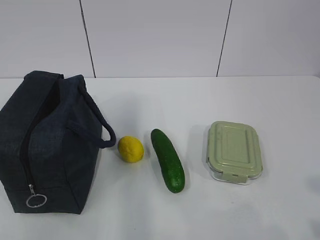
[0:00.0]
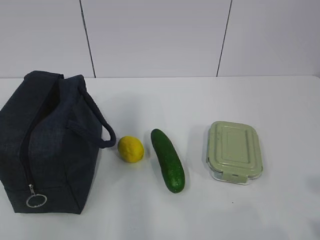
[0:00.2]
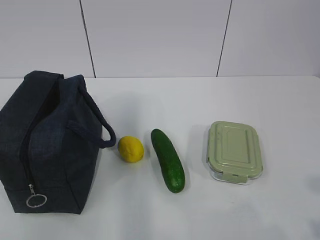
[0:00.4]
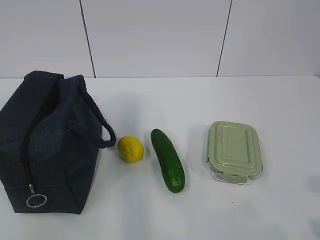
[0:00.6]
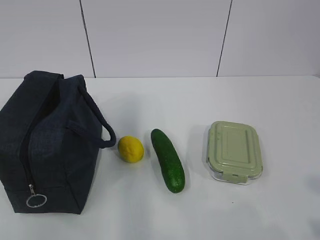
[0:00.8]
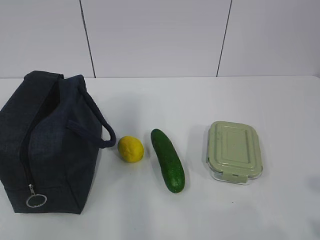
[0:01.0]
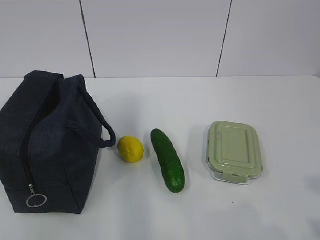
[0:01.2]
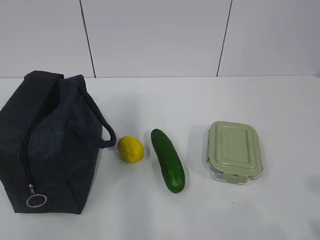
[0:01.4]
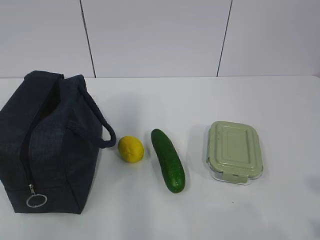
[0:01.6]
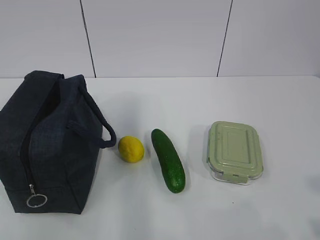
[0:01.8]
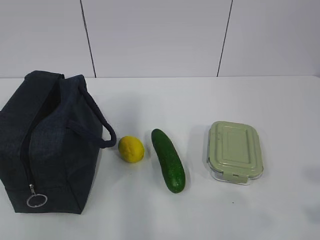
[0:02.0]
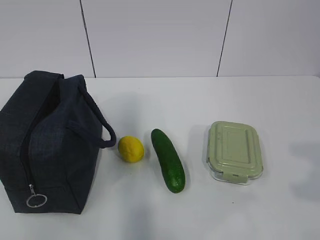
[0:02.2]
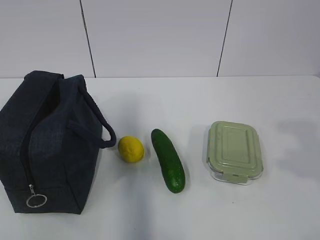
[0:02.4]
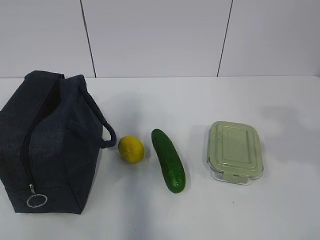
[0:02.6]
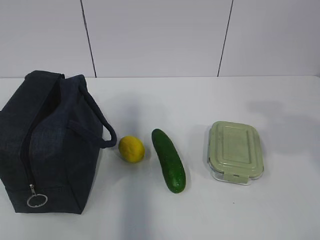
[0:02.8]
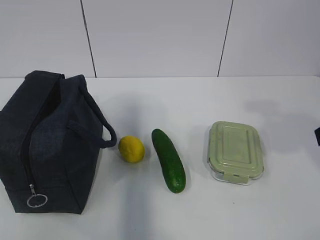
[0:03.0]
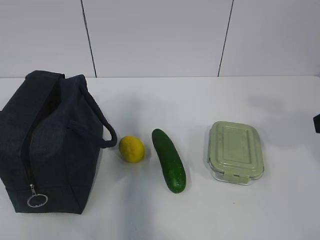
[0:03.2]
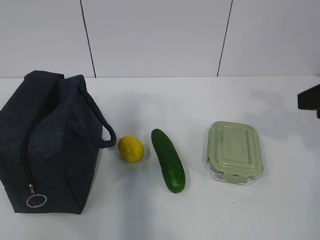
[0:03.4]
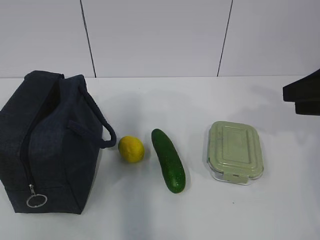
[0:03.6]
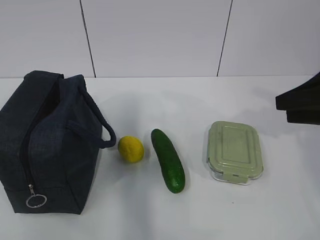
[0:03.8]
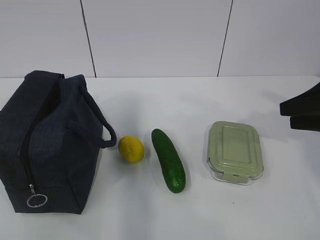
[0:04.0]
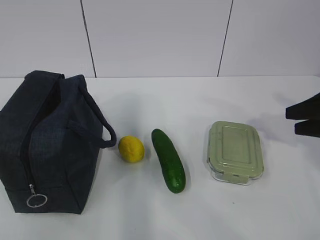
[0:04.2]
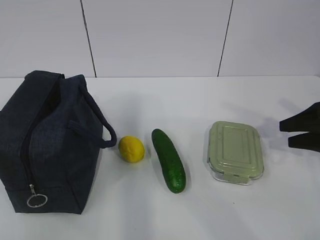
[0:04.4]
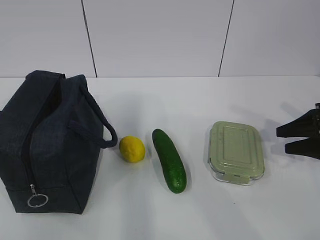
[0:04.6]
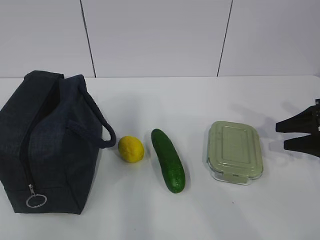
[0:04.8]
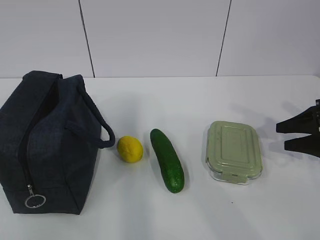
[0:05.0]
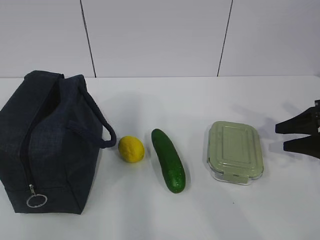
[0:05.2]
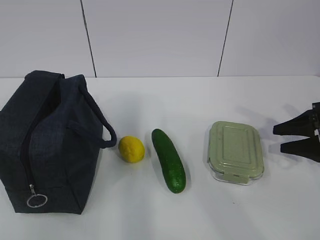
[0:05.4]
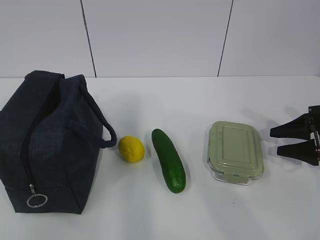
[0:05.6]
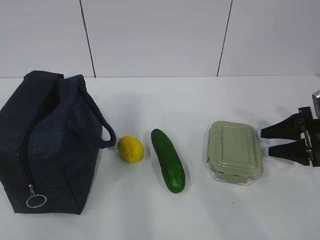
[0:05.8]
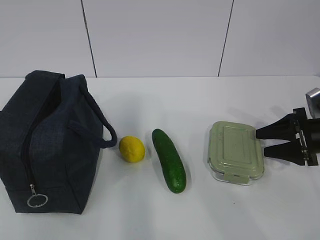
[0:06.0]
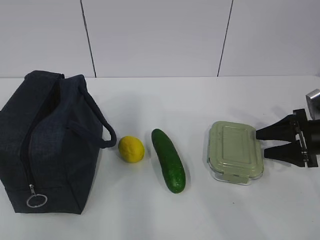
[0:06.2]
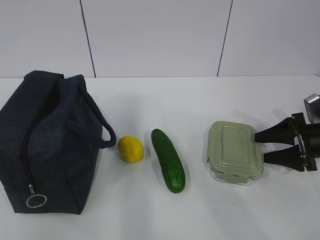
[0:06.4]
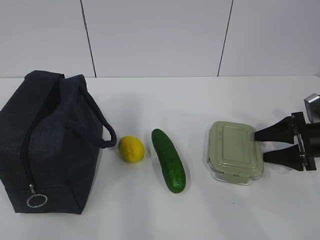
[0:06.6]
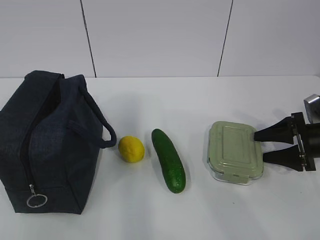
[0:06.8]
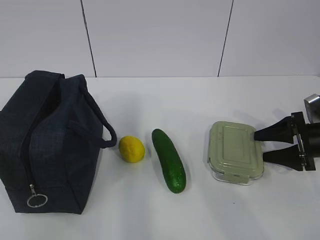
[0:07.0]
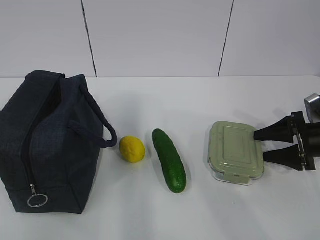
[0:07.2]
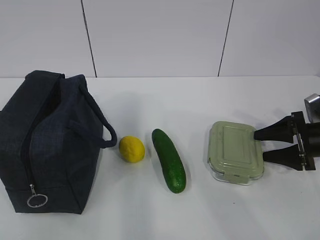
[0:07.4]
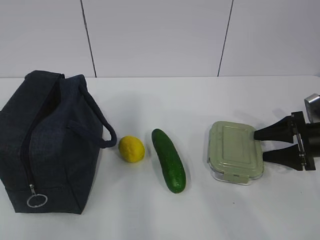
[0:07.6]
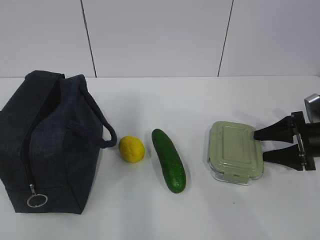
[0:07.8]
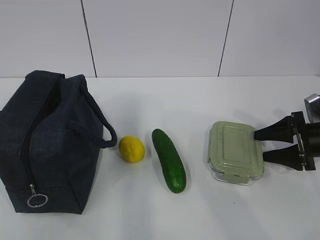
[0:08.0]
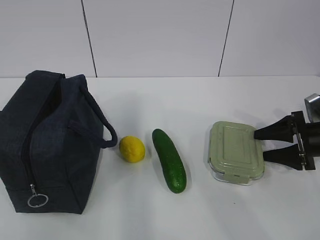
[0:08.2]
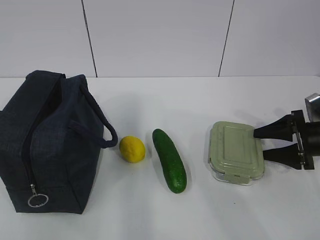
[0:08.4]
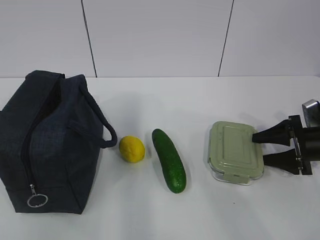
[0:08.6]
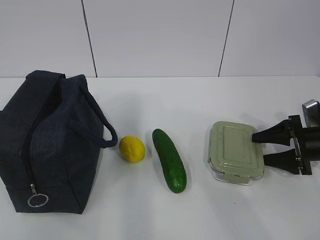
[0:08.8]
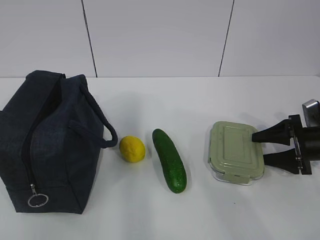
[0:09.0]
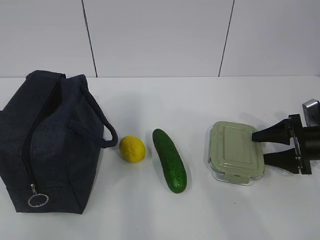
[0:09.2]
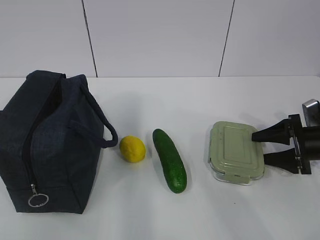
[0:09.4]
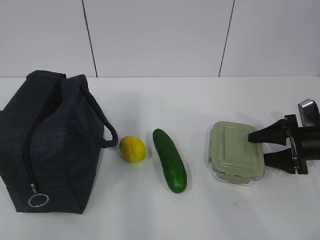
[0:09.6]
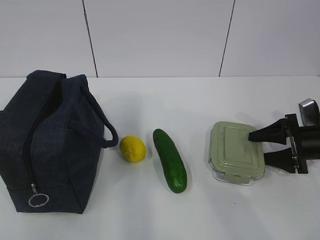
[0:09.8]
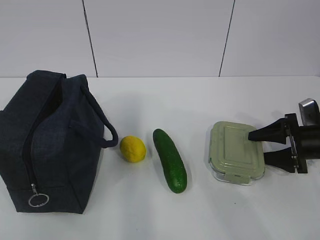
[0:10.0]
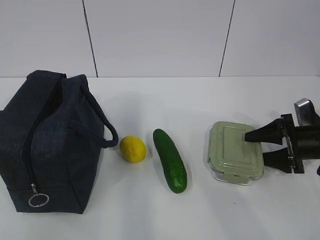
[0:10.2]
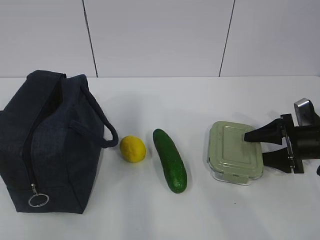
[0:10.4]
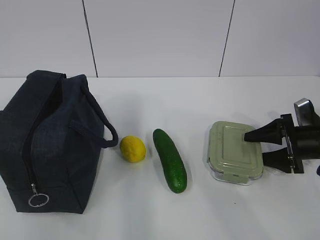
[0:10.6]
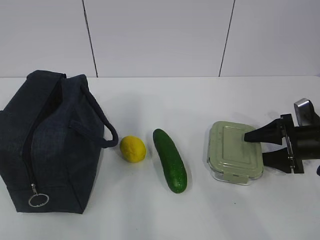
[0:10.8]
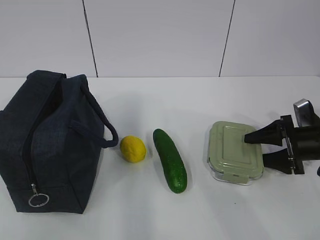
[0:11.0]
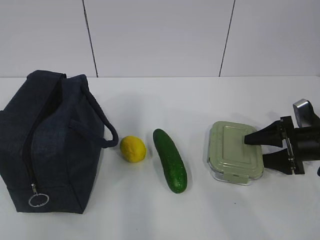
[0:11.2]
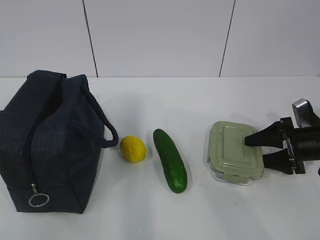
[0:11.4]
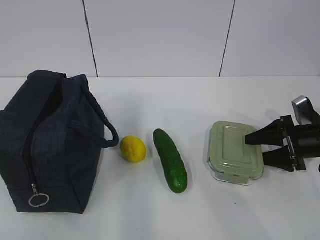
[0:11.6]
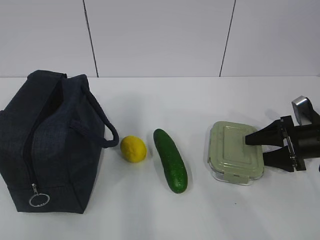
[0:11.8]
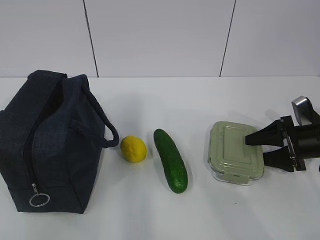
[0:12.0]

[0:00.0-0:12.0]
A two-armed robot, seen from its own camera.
0:01.6 to 0:03.0: The right gripper goes roughly 20 cm forward, and opens.
0:03.0 to 0:04.4: The right gripper shifts roughly 20 cm downward, forward and to the right.
0:04.4 to 0:06.0: The right gripper changes place by roughly 5 cm.
0:06.0 to 0:07.6: Both grippers stay about where they are.
0:07.6 to 0:09.0: Neither gripper changes place.
0:09.0 to 0:12.0: There are only small adjustments of the grippers.

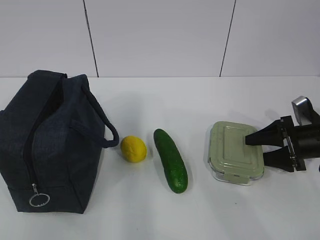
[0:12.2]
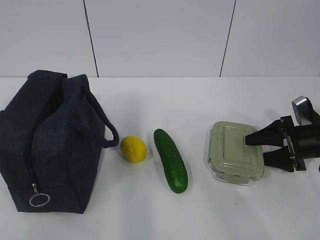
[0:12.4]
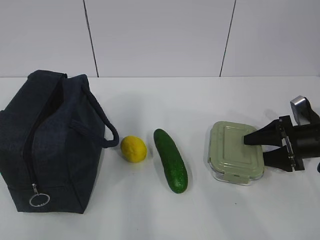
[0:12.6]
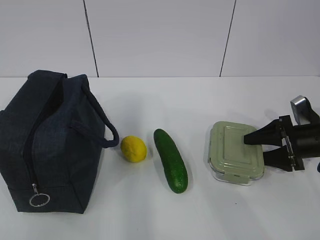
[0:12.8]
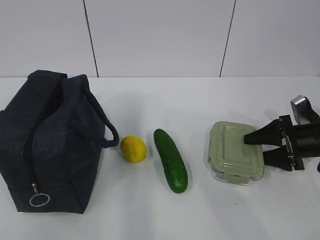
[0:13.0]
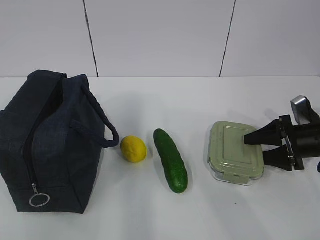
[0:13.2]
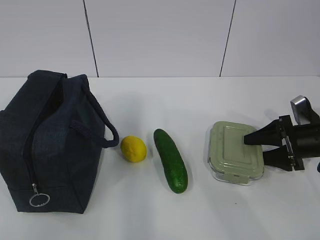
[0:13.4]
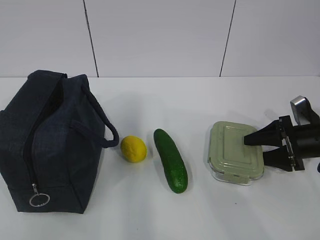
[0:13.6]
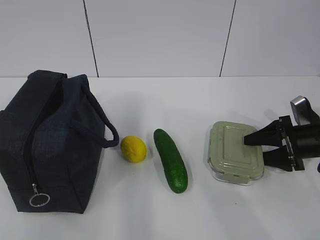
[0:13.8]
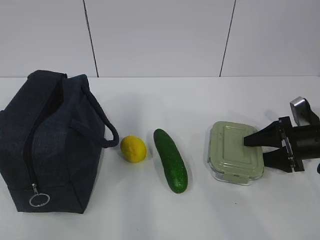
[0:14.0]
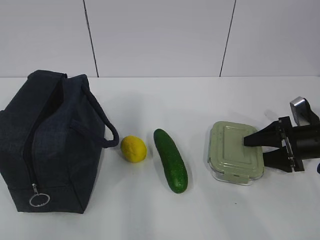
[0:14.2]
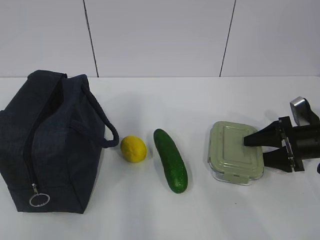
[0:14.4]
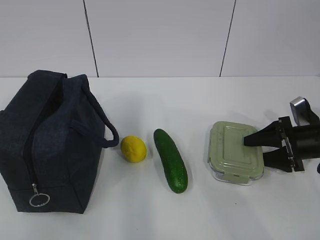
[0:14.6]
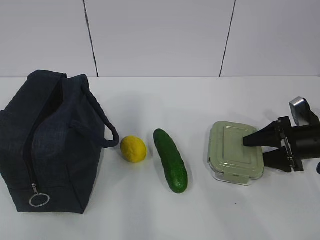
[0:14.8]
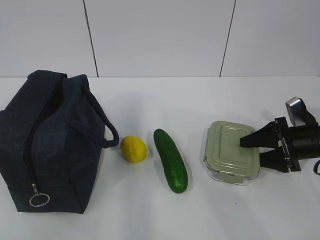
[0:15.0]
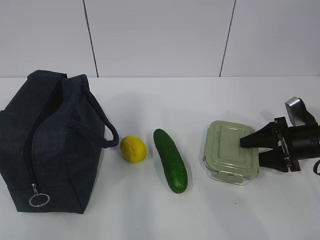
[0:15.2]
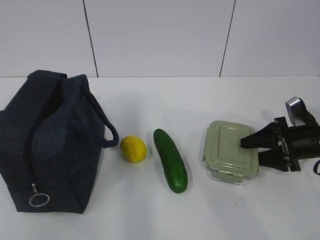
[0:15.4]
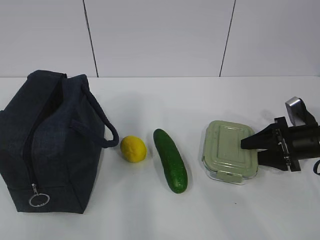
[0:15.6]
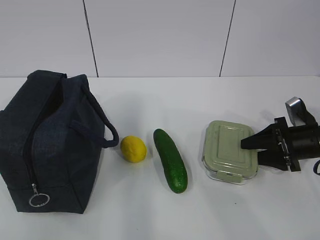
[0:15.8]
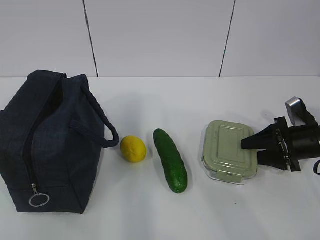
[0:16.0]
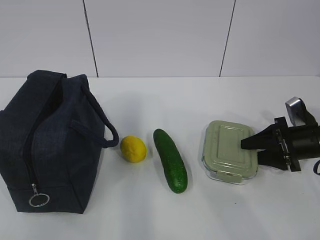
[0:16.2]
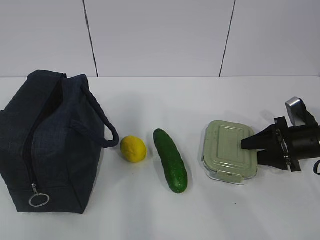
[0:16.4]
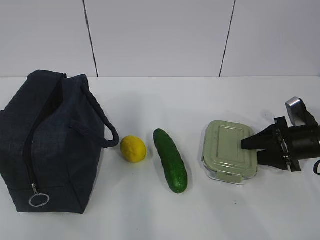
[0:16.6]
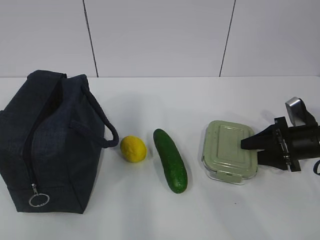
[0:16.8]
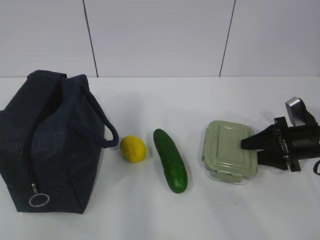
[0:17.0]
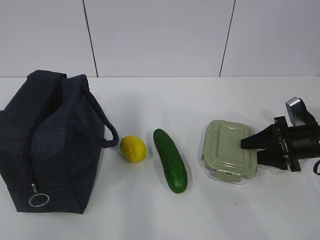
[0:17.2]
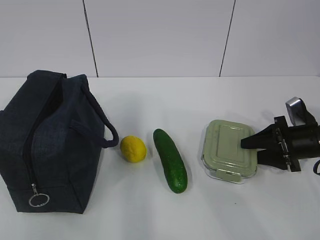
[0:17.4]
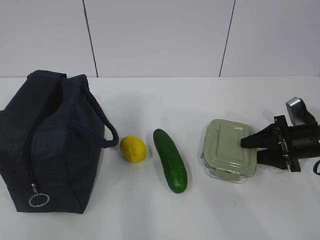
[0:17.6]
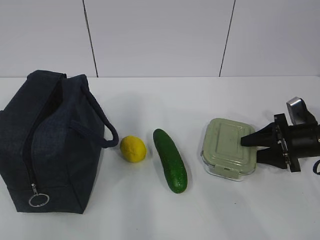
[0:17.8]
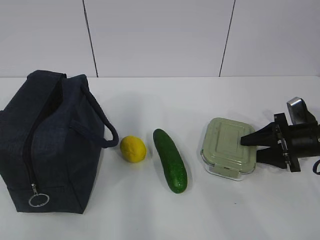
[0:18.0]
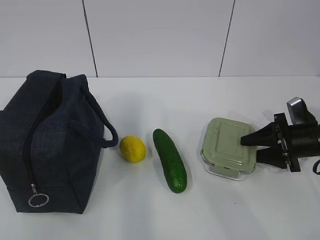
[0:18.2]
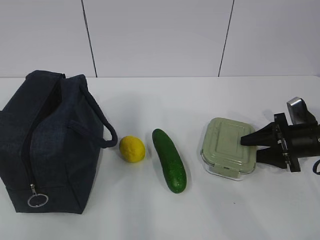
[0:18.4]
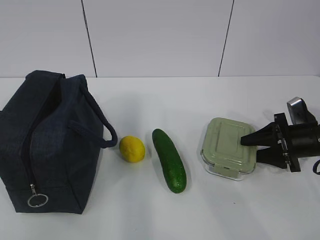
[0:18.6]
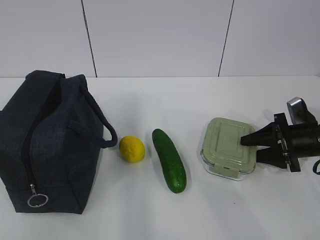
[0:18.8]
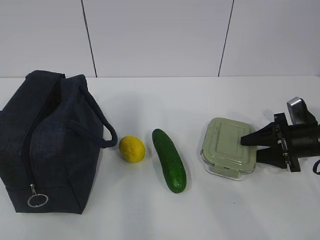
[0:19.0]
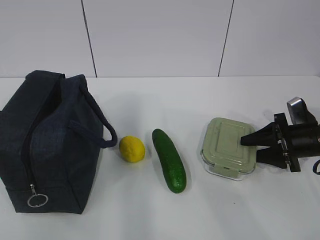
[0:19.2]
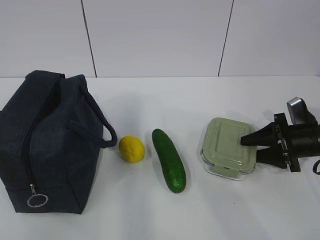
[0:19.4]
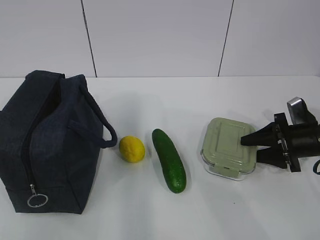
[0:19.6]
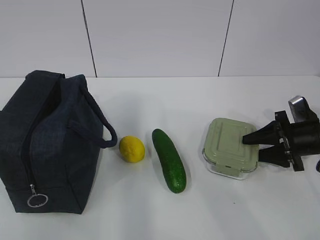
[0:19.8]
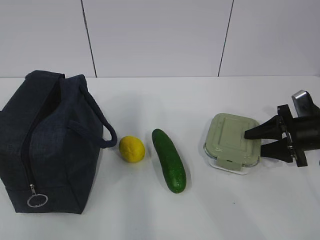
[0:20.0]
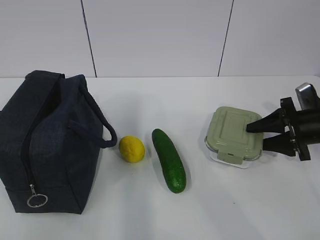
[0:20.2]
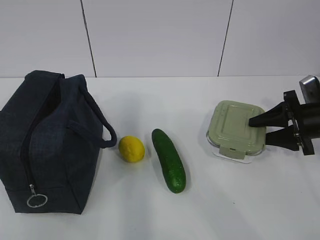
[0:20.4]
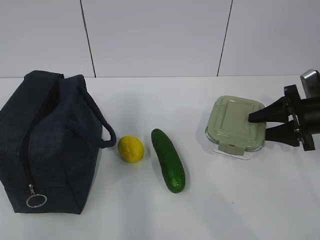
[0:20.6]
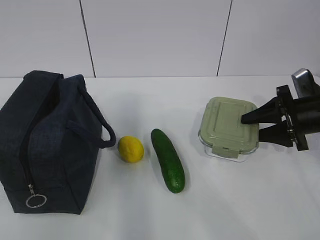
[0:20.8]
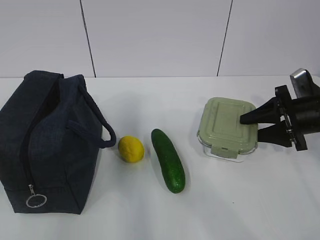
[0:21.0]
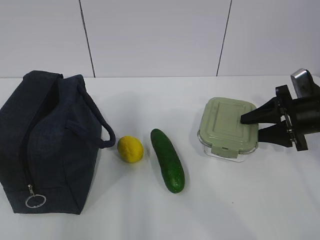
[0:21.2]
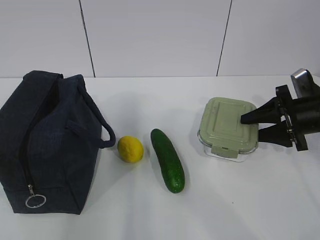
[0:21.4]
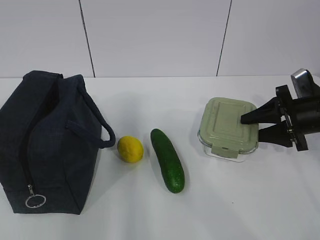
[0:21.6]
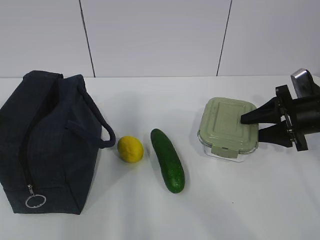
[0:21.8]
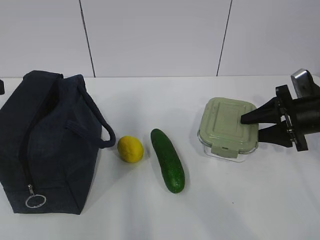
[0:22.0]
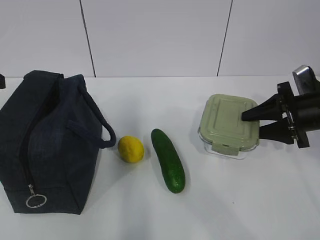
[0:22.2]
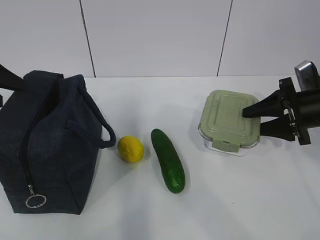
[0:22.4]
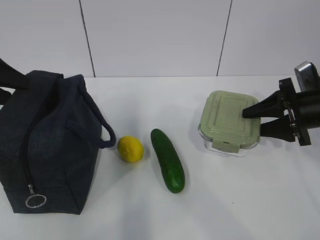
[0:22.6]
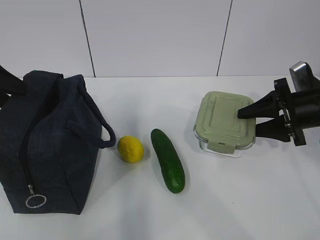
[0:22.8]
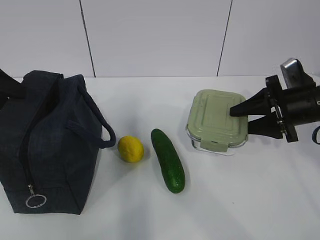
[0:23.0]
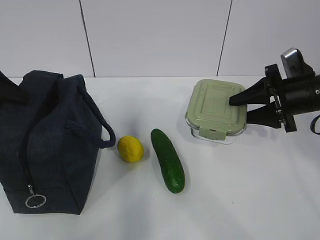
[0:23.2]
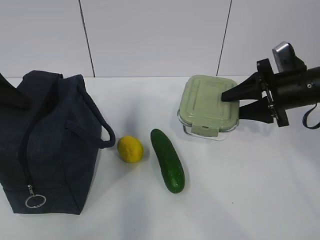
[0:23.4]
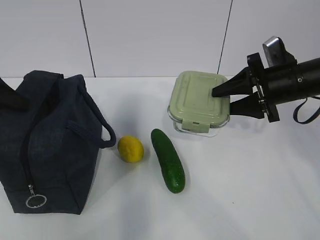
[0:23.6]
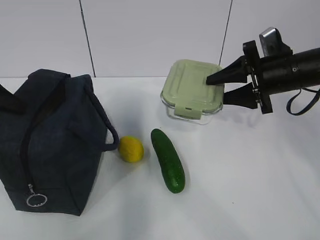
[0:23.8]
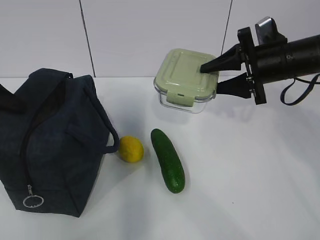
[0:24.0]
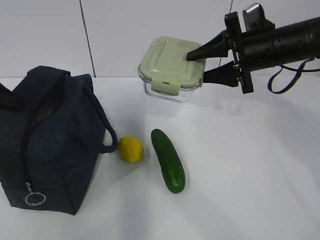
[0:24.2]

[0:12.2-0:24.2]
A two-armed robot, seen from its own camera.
Step, 0:12.2 to 0:16.2: Grab the lunch box with your right hand.
Step, 0:16.6 to 0:21.8: Grab the lunch bag with your left hand.
0:12.2 to 0:16.6: Neither gripper changes place.
0:16.6 to 0:18.2: There are only small adjustments of the grippers.
0:18.2 to 0:19.8: Both grippers stay about where they are.
0:19.8 to 0:21.2: The right gripper is displaced upward by approximately 5 cm; the left gripper is displaced forward by approximately 10 cm.
0:21.2 to 0:22.6: The left gripper heads forward, covering approximately 20 cm.
0:22.6 to 0:24.2: The left gripper closes up, while the right gripper moves to the left and upward, some 15 cm.
